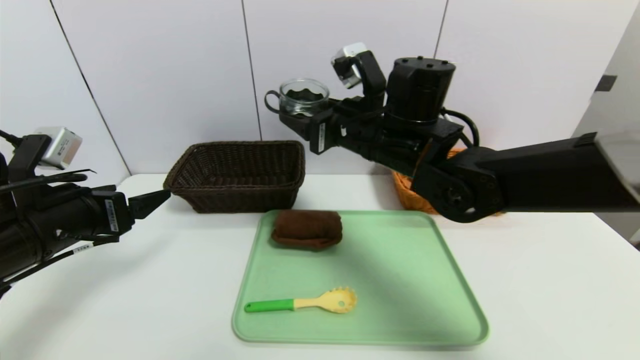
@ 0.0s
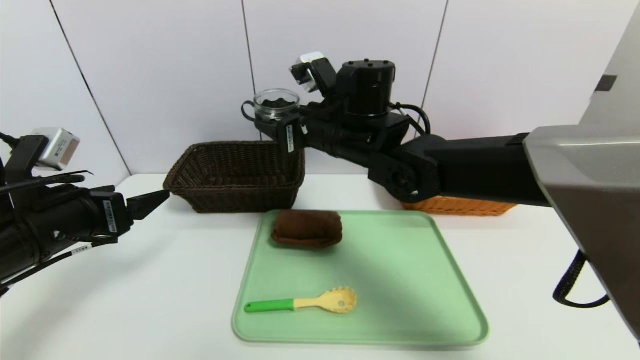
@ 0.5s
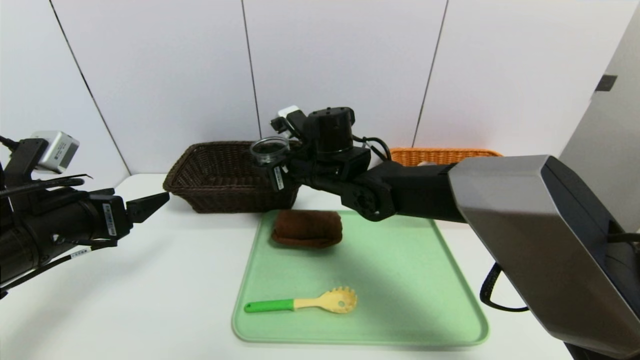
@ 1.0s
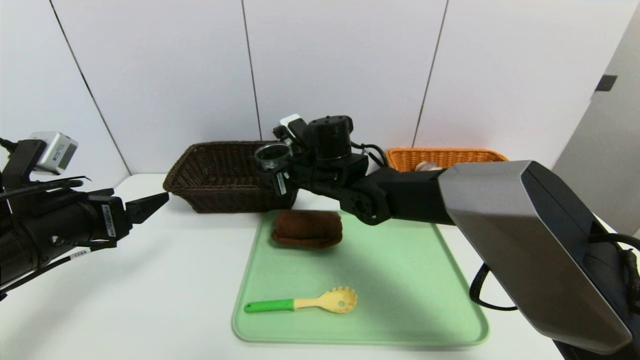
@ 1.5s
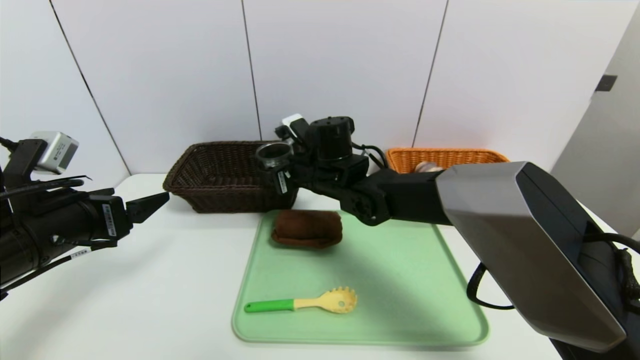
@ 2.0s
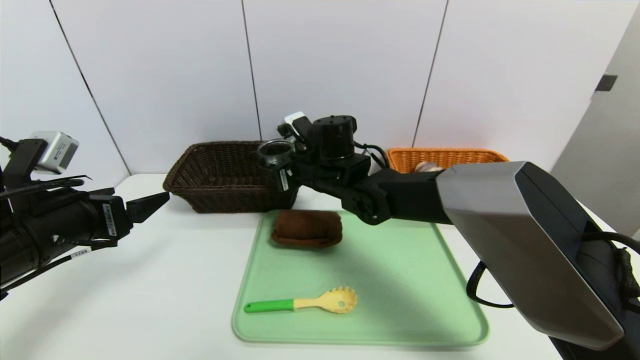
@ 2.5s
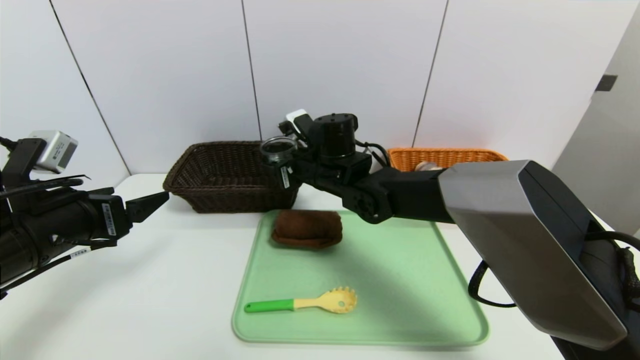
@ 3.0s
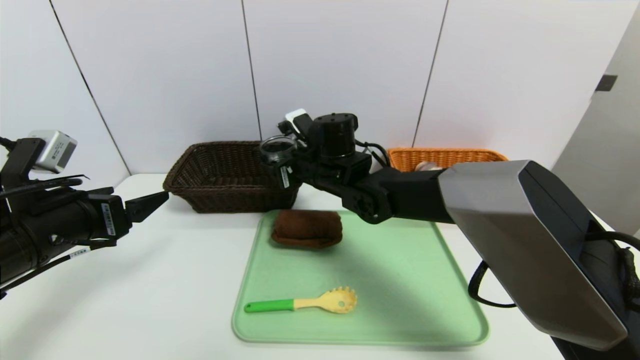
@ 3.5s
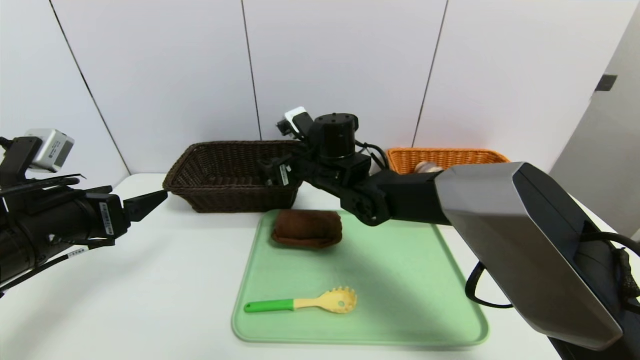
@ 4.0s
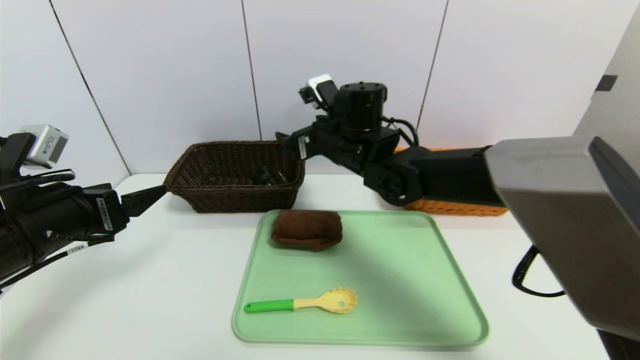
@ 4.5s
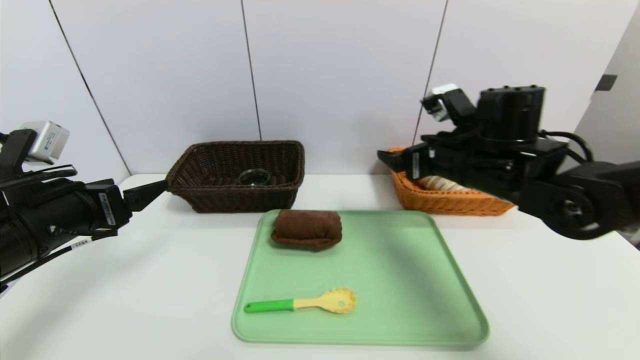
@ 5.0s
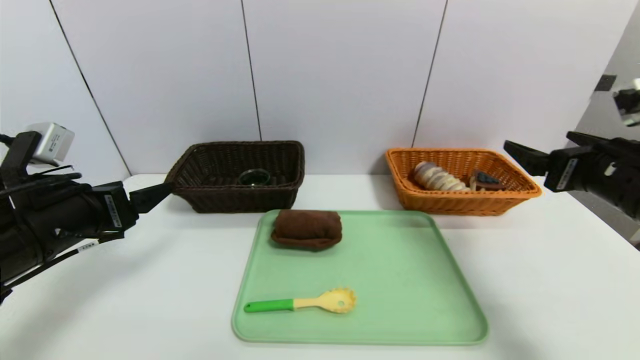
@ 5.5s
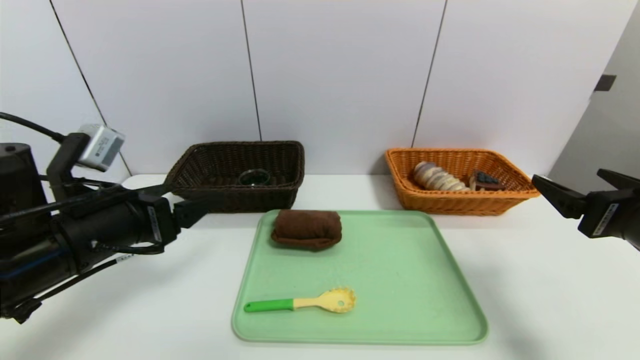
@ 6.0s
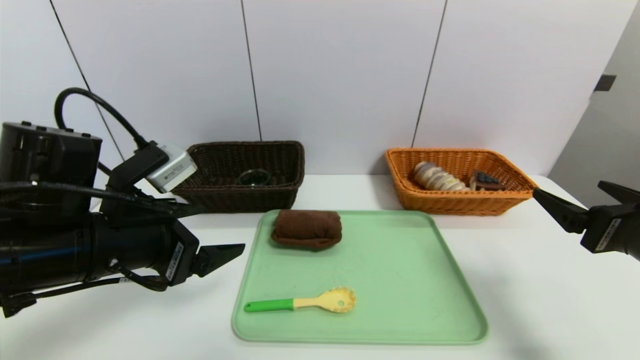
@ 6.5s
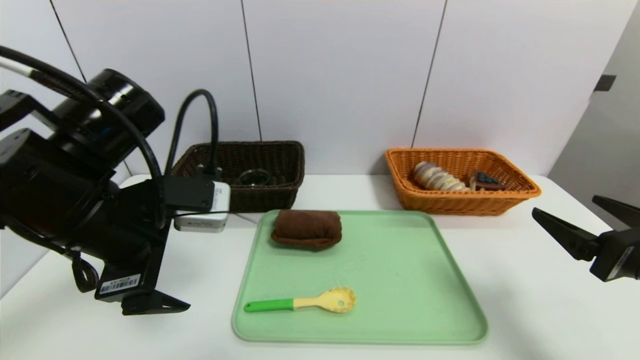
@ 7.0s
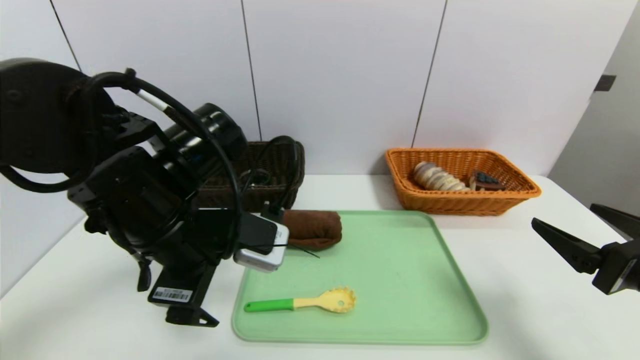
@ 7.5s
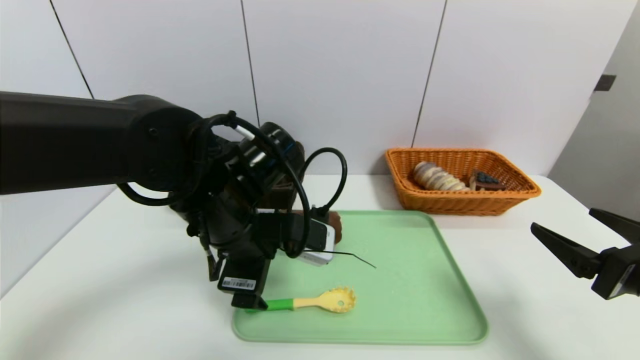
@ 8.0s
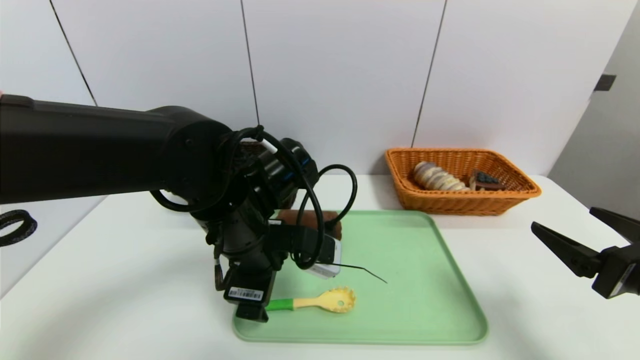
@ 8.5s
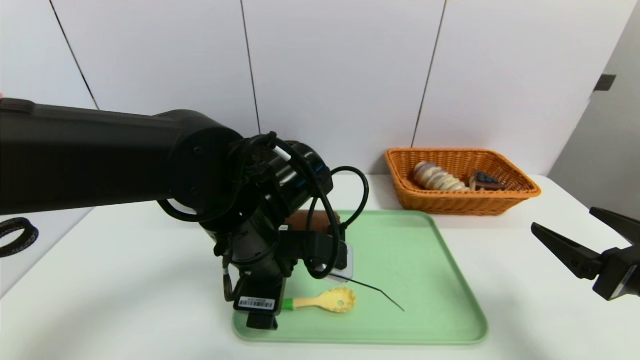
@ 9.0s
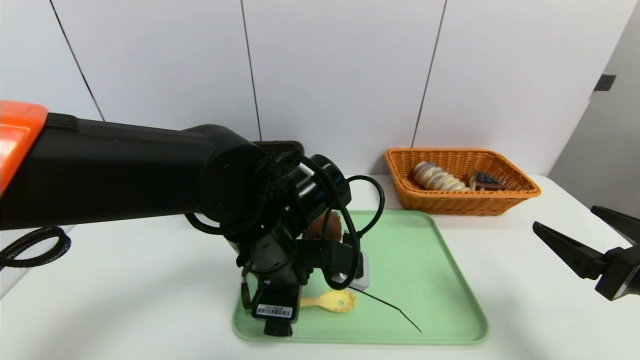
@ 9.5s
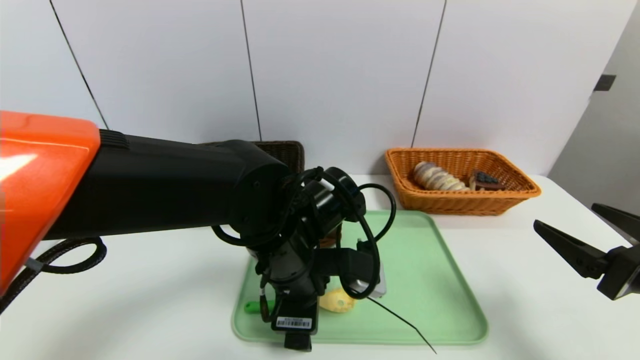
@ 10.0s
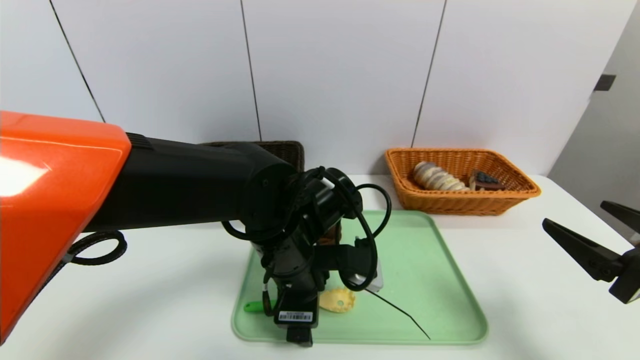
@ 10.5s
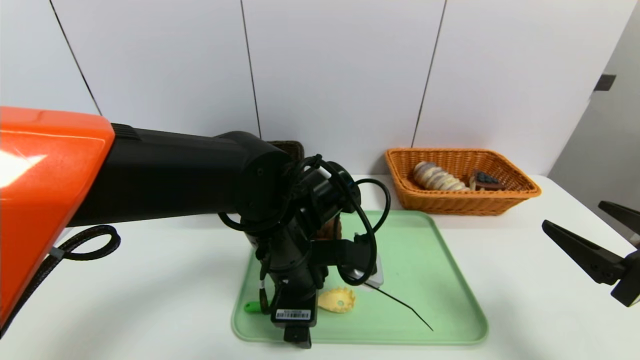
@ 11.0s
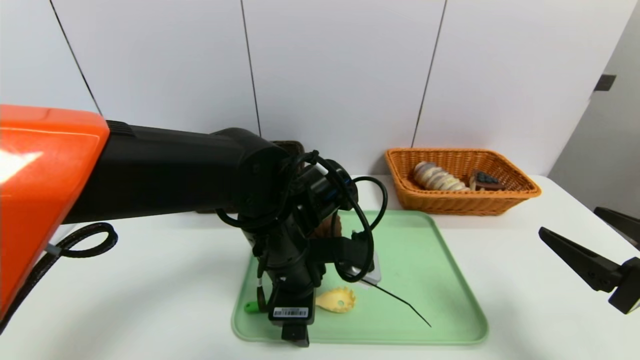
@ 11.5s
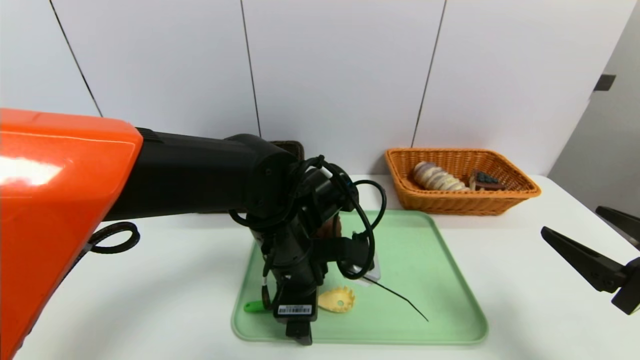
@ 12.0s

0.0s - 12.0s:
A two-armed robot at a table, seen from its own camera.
Task of the whole recording: place the food in the right basket with the right gripper, and place the non food items in the left basket with the left gripper.
0.0s - 2.0s: The right gripper goes some 15 cm downward, to the left and forward.
2.0s - 4.0s: The grippers move only a little.
4.0s - 6.0s: The right gripper moves to the right and backward, roughly 40 cm. The left gripper heads to the right, covering roughly 5 cm.
6.0s - 8.0s: The left gripper goes about 15 cm to the right.
8.0s - 10.0s: The left gripper heads to the right, covering approximately 5 cm.
10.0s - 12.0s: The grippers move only a little.

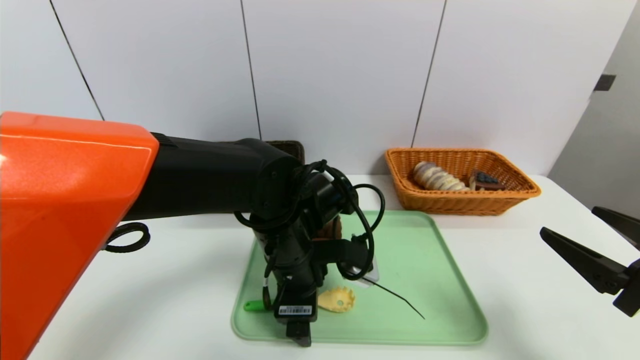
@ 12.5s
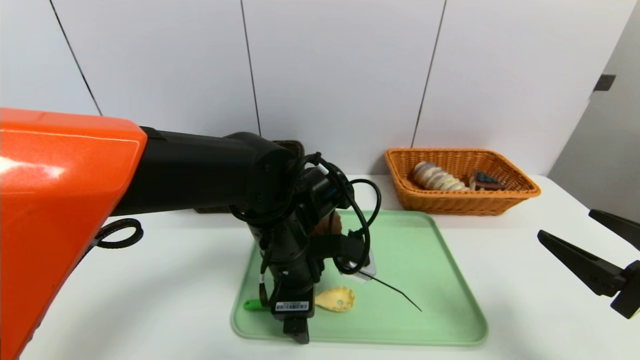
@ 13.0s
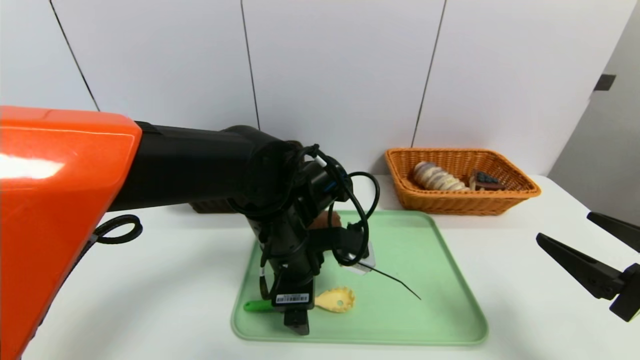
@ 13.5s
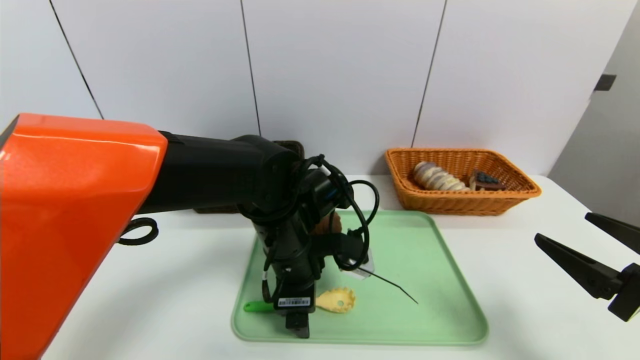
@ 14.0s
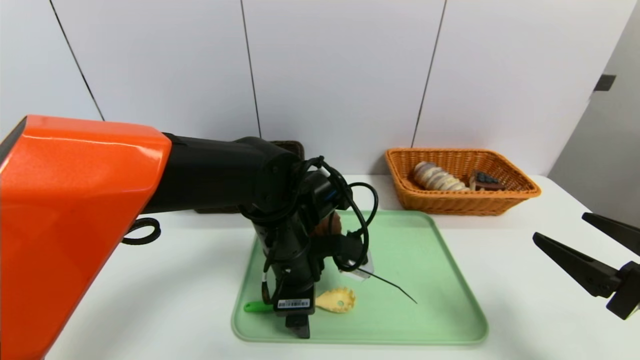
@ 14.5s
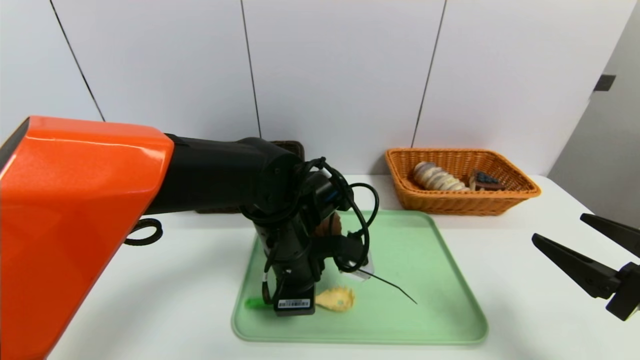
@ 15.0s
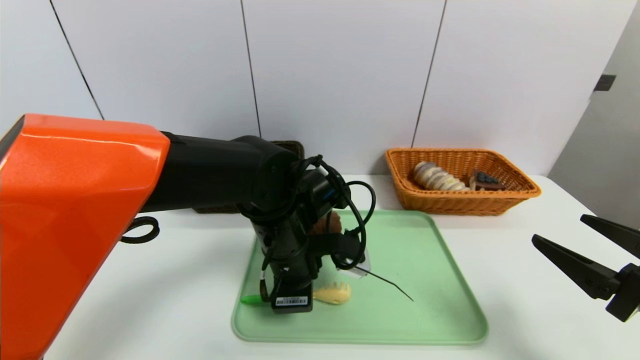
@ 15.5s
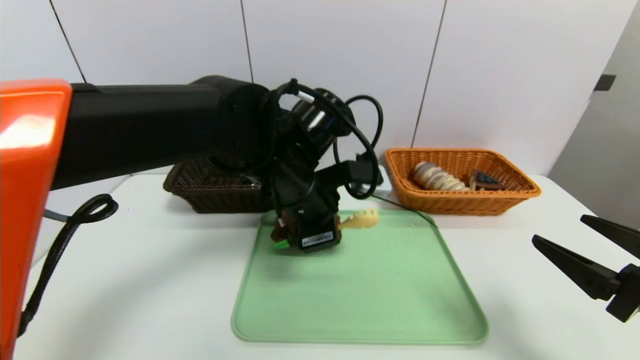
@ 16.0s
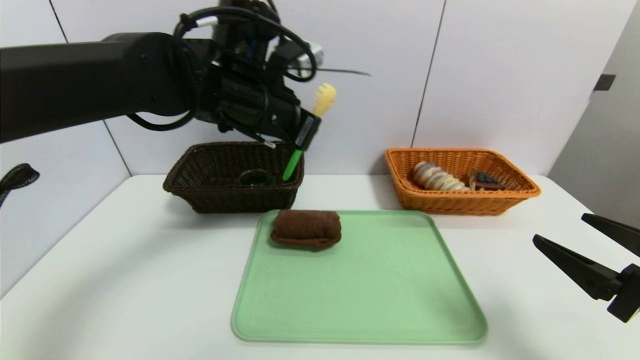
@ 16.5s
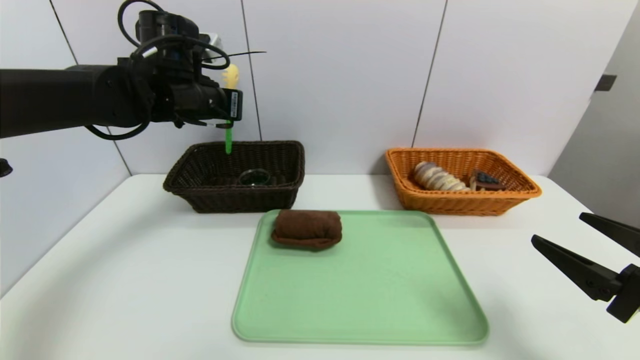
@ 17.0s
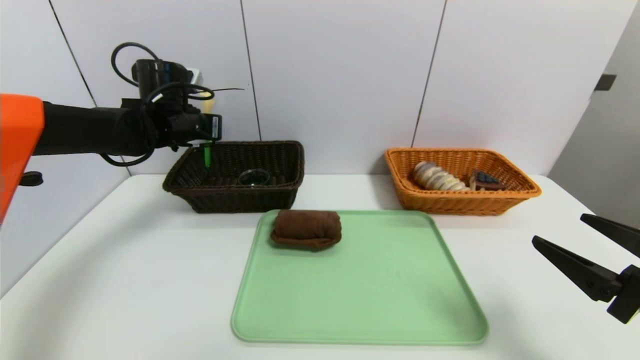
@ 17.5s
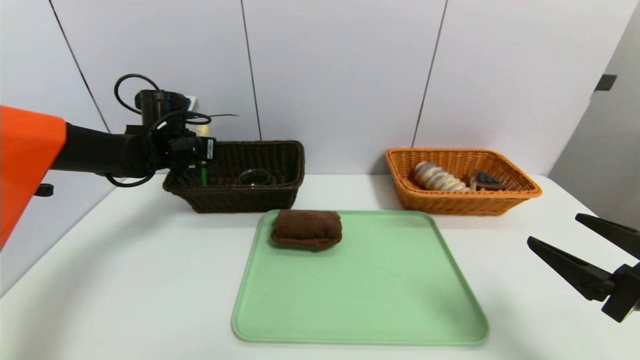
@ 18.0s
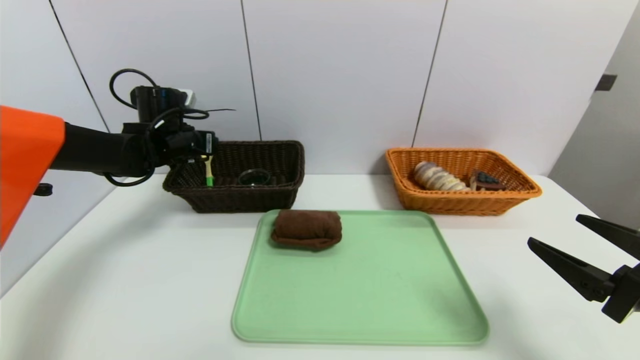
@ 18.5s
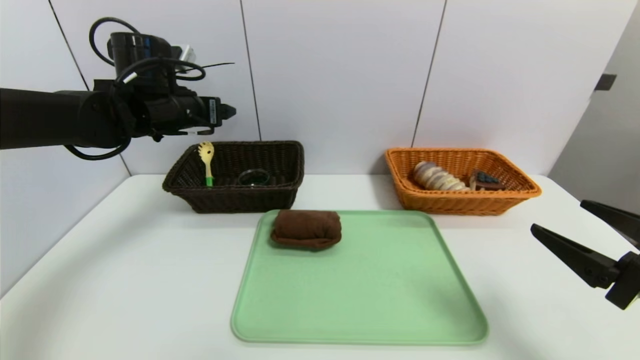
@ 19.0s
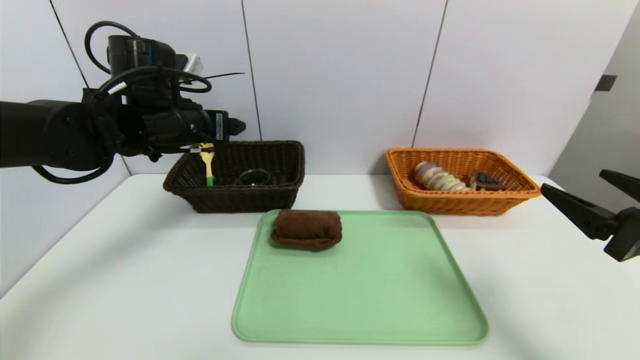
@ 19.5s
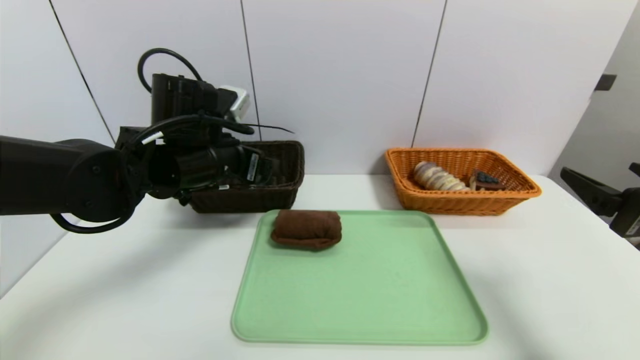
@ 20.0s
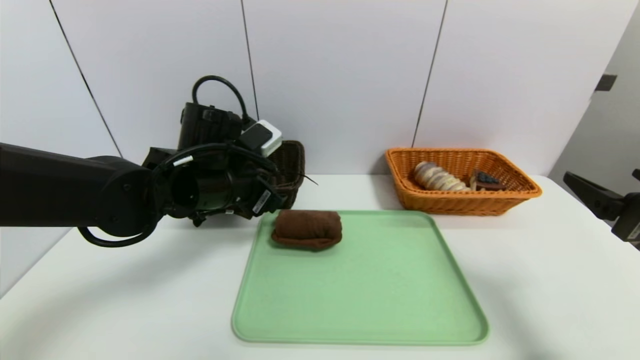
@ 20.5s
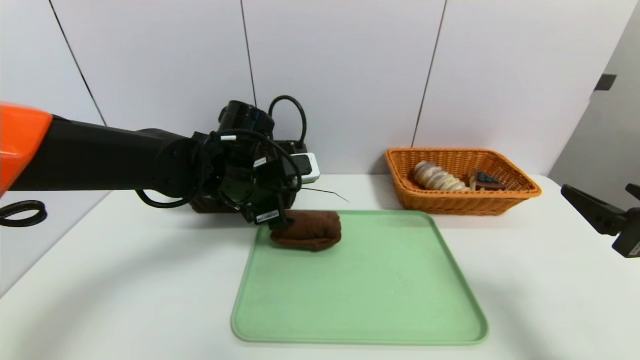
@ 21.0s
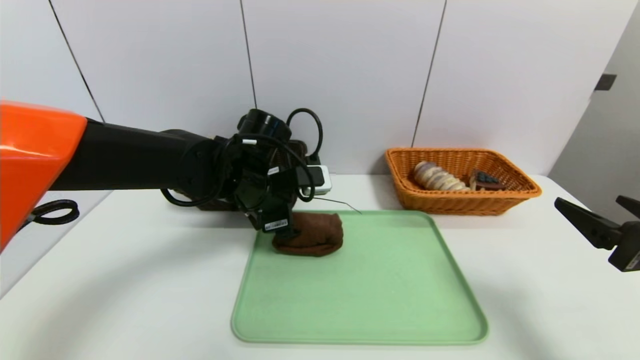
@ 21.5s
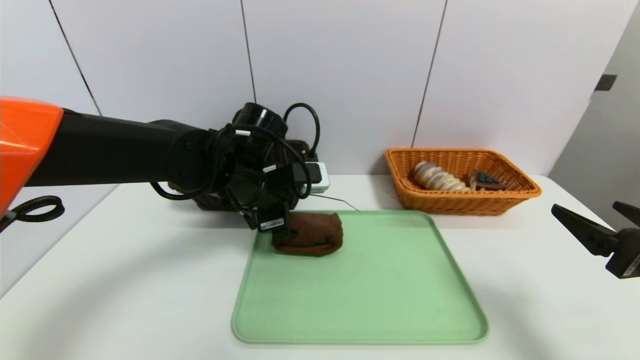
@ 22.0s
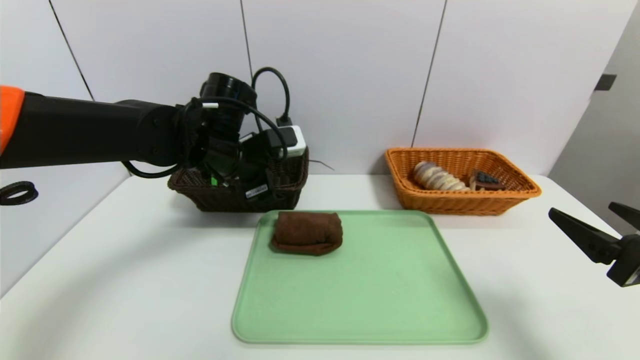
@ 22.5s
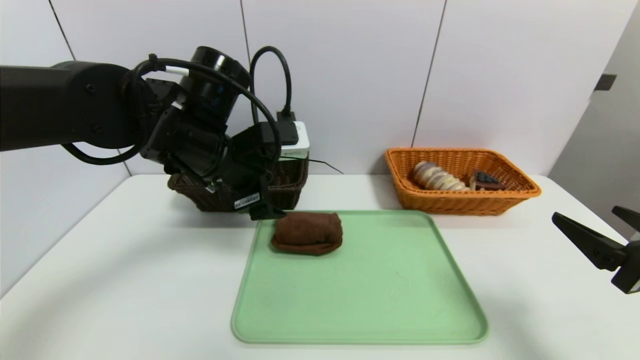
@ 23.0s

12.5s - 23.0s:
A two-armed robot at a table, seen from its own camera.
Task of the whole recording: place the food in the right basket with the right gripper, and place the non food items in the left basket with the left gripper.
Step, 12.5s - 18.5s: Grasp the back scratcher and put it in the left basket.
12.5s - 14.5s: The grippers move only a little.
14.5s - 16.5s: The left gripper is displaced upward and forward by approximately 15 cm, and closes.
16.5s - 19.0s: The left gripper heads to the left, covering approximately 15 cm, and opens.
19.0s - 21.0s: The left gripper moves to the right, downward and backward, about 15 cm.
21.0s - 23.0s: The left gripper heads upward, covering approximately 5 cm.
